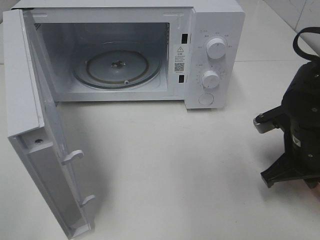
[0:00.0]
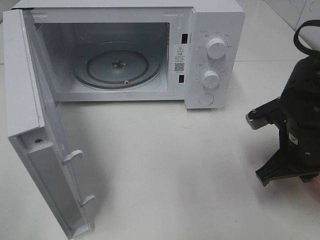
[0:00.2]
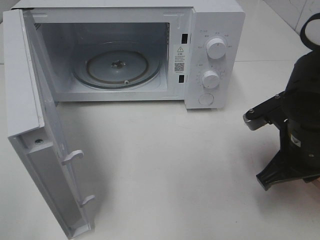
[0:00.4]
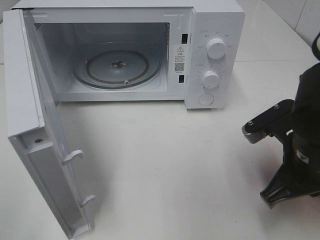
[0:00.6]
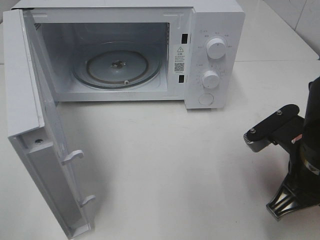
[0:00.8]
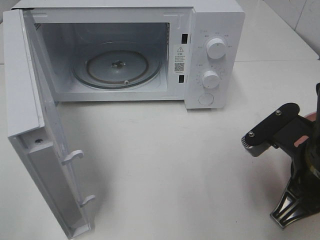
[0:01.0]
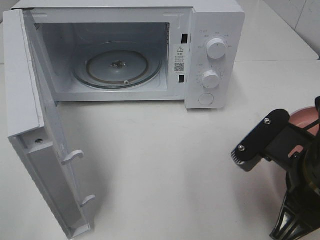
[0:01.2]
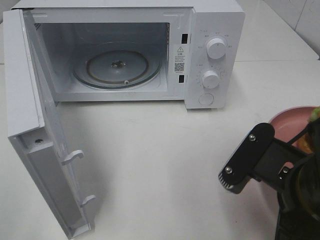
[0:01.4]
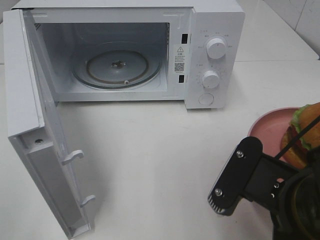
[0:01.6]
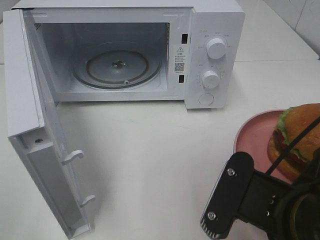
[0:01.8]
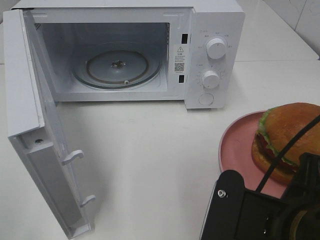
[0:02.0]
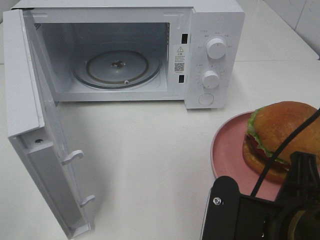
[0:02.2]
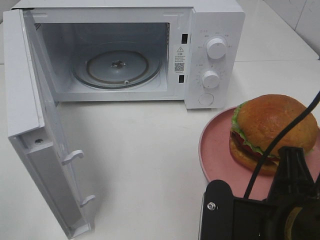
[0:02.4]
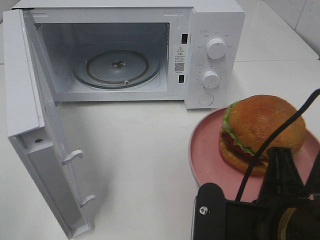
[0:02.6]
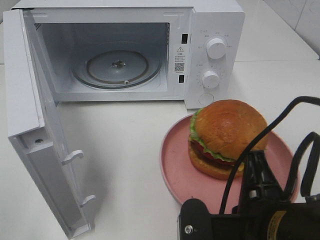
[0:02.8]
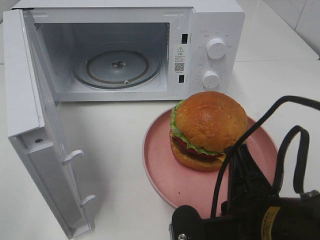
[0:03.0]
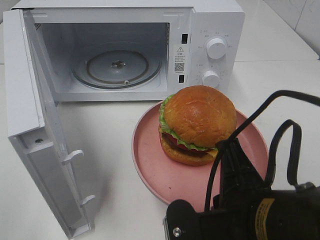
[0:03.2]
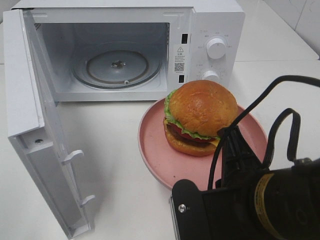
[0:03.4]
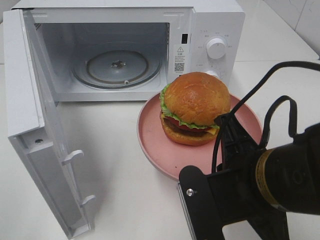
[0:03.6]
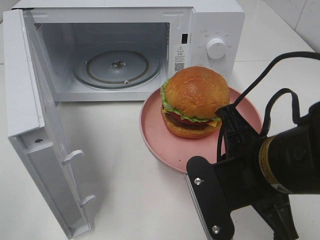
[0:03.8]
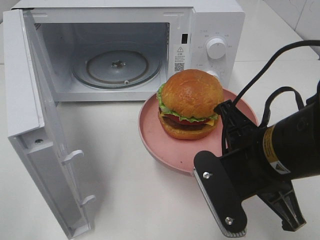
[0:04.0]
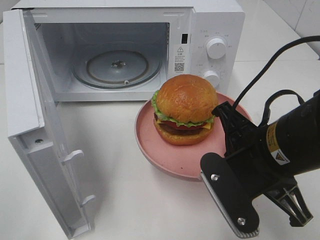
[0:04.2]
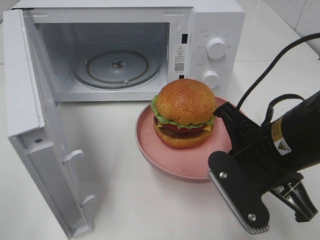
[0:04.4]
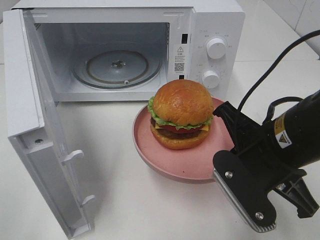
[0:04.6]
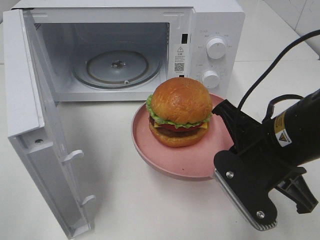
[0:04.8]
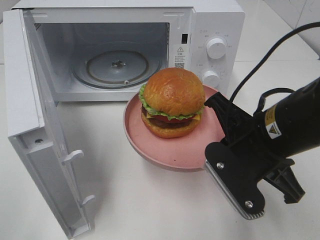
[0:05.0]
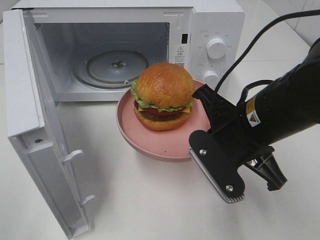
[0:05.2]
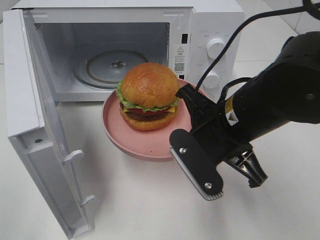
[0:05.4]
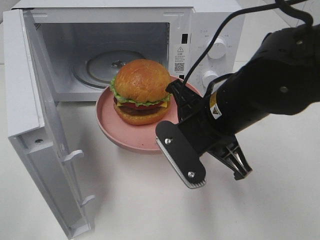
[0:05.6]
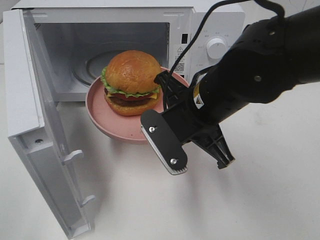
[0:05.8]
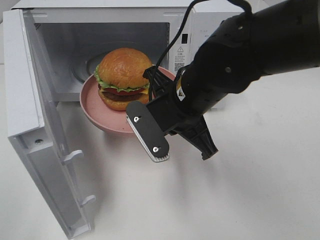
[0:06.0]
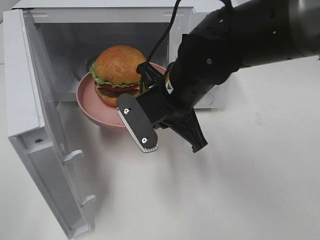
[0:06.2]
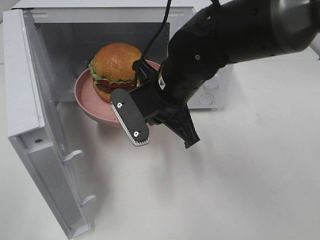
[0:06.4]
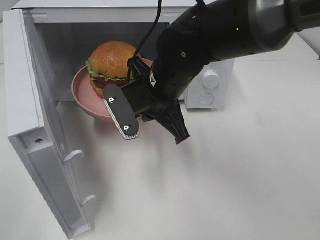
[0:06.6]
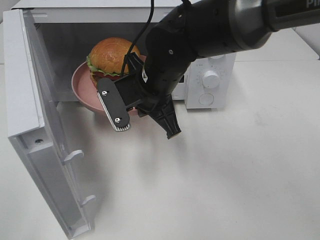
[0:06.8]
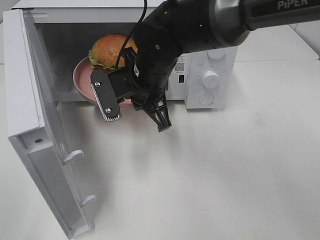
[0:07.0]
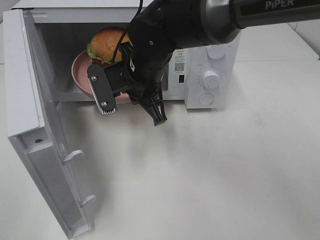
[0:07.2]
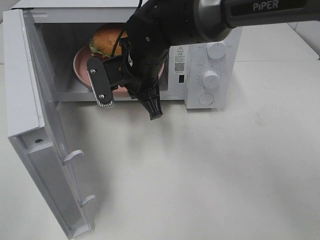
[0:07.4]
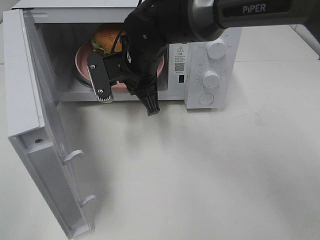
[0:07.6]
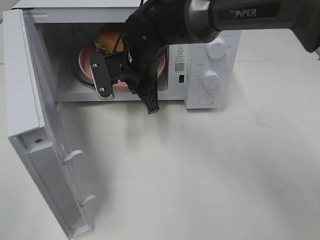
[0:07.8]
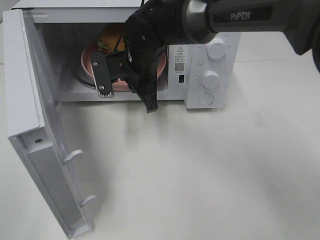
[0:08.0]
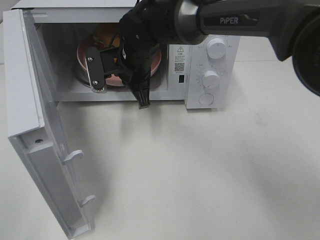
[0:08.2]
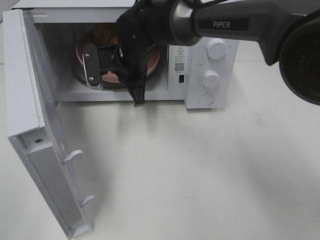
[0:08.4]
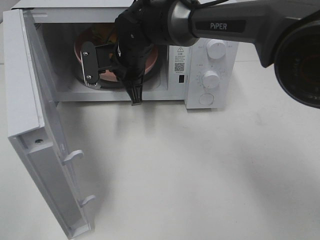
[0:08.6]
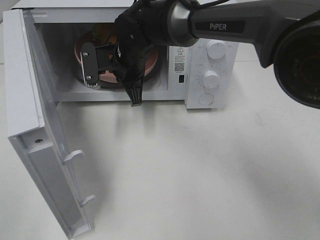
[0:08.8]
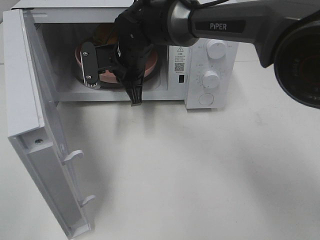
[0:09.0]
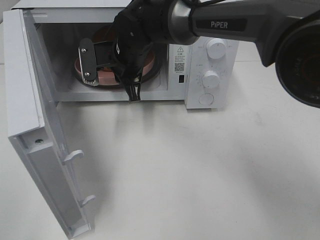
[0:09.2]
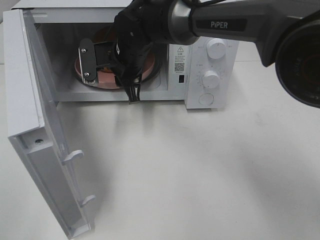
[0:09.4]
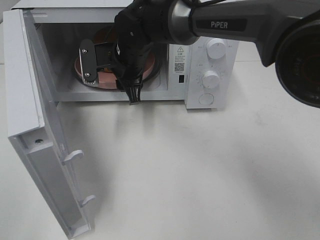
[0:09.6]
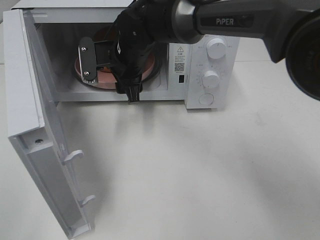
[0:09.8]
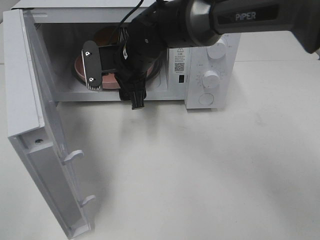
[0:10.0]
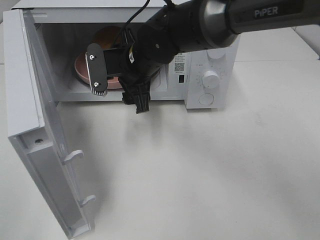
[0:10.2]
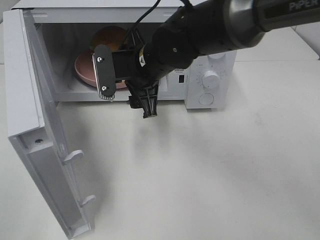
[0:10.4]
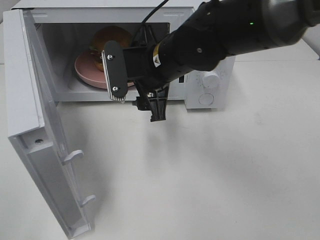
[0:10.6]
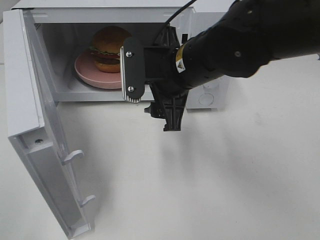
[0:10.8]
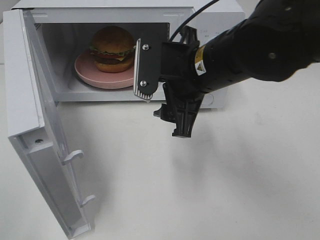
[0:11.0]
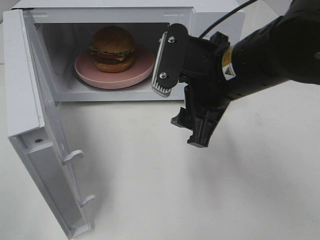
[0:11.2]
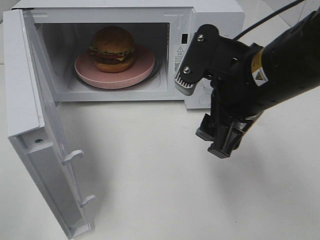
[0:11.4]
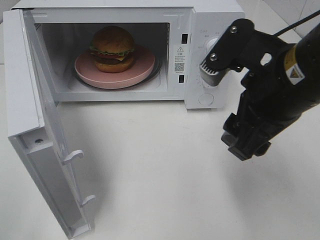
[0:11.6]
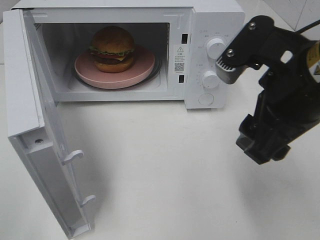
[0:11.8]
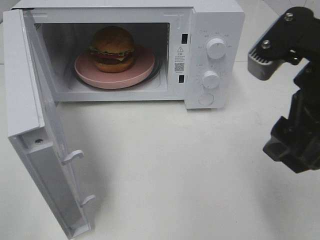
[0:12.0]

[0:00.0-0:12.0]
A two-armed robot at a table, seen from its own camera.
Task of the whole recording: Heat the burger.
Step, 0:00.0 to 0:09.2: Right hand: place the plate in the microwave.
0:00.0 to 0:01.6: The right gripper shifts approximately 20 cm backward, to the left and upward.
0:03.0 to 0:04.4: The right gripper travels forward by approximately 10 cm.
0:04.4 to 0:06.0: The right gripper shifts about 15 cm to the left and forward.
0:06.0 to 0:07.6: The right gripper heads forward and to the left, covering some 15 cm.
0:07.6 to 0:09.0: The grippers move only a little.
0:09.0 to 0:10.4: The right gripper is displaced backward by approximately 5 cm, and opens up.
0:10.4 to 0:12.0: The right gripper moves backward, to the right and upward, roughly 25 cm.

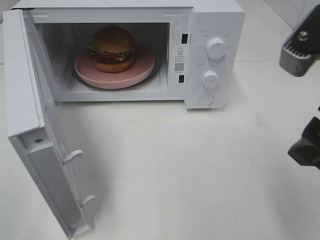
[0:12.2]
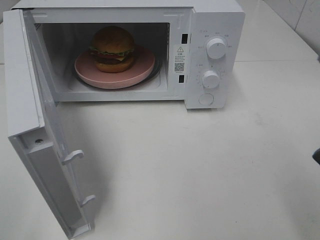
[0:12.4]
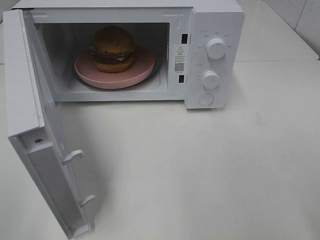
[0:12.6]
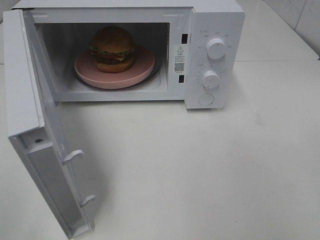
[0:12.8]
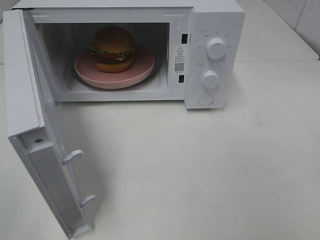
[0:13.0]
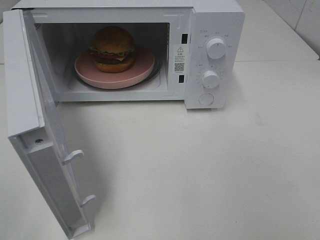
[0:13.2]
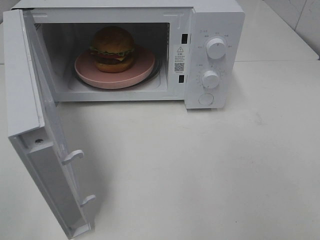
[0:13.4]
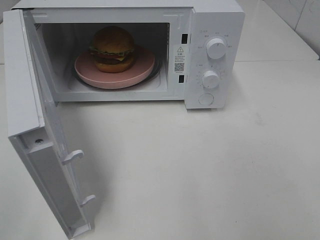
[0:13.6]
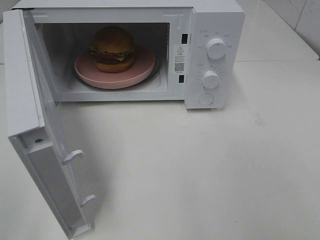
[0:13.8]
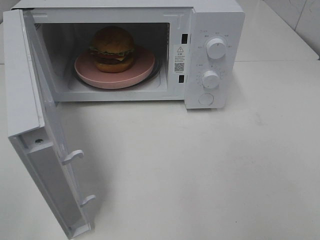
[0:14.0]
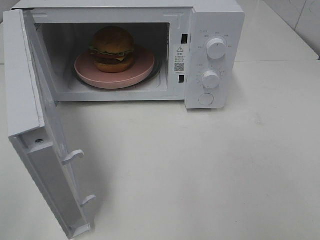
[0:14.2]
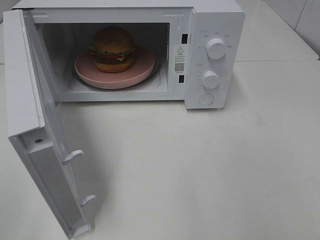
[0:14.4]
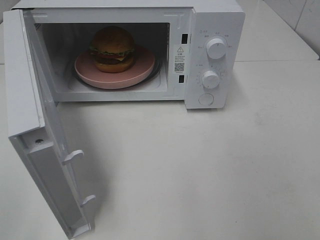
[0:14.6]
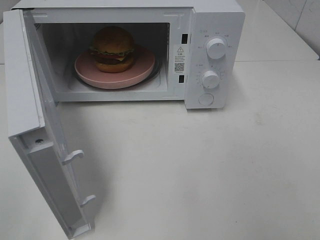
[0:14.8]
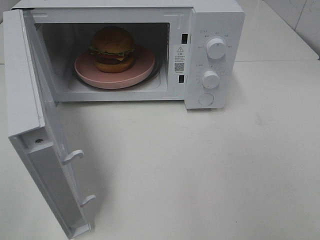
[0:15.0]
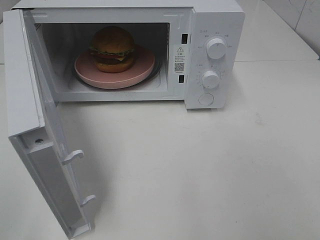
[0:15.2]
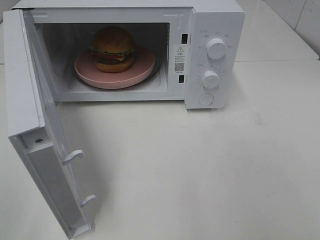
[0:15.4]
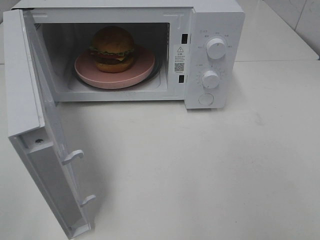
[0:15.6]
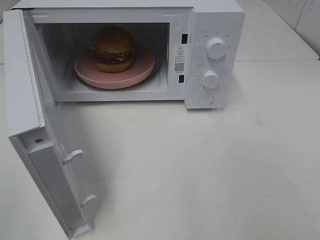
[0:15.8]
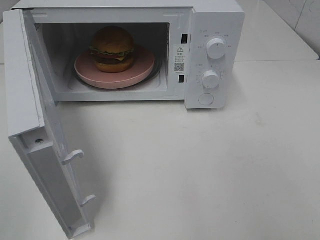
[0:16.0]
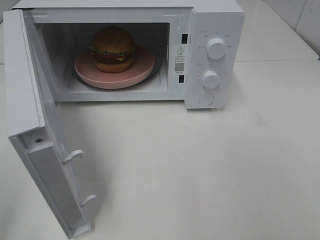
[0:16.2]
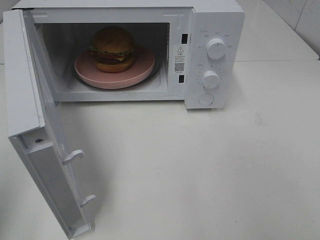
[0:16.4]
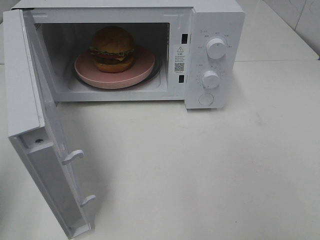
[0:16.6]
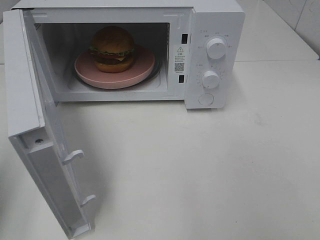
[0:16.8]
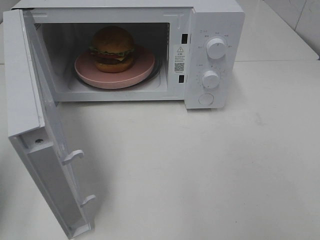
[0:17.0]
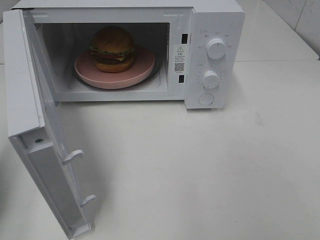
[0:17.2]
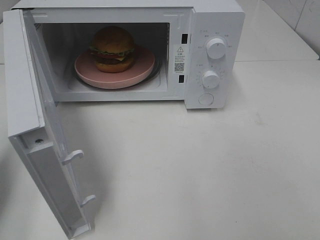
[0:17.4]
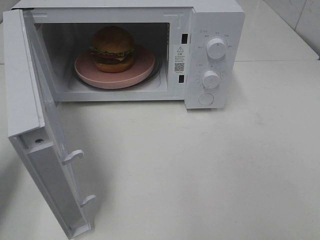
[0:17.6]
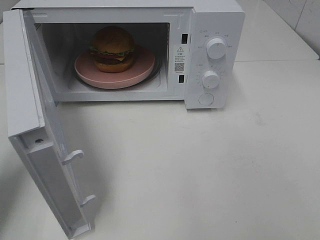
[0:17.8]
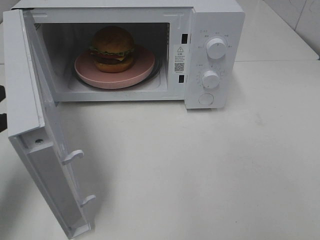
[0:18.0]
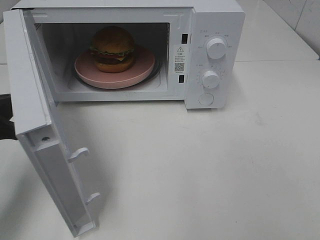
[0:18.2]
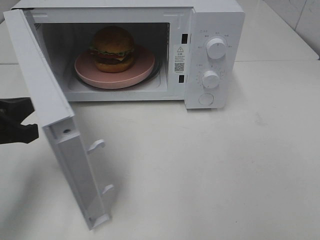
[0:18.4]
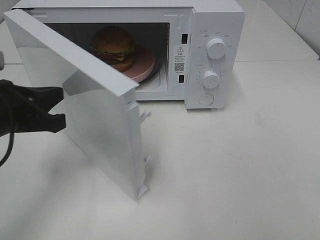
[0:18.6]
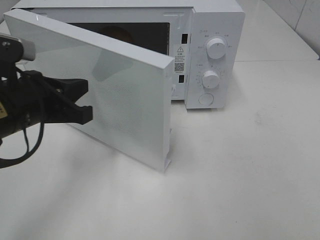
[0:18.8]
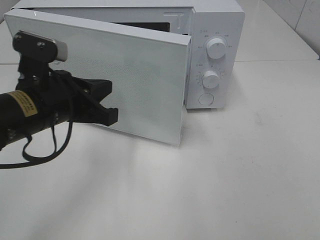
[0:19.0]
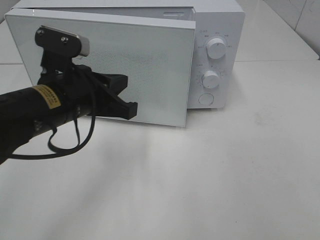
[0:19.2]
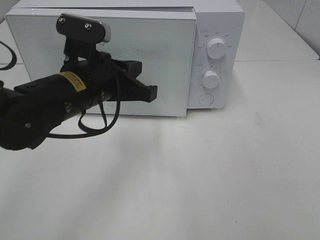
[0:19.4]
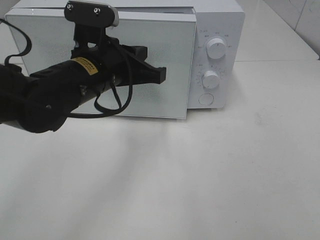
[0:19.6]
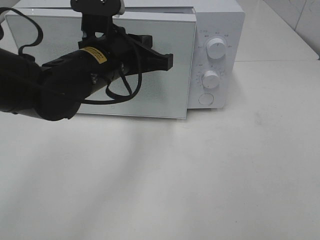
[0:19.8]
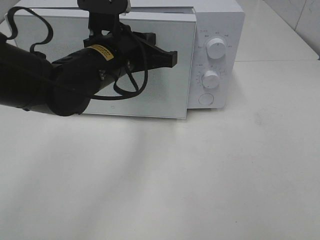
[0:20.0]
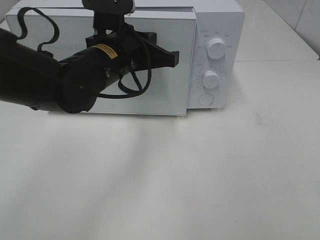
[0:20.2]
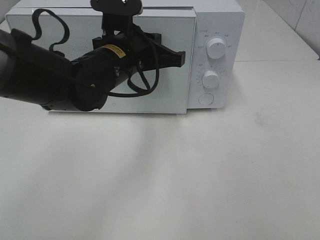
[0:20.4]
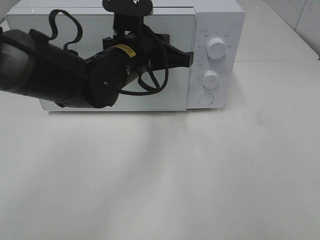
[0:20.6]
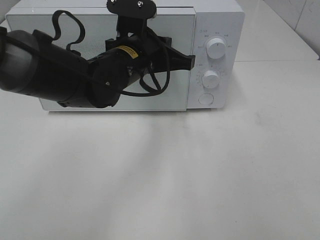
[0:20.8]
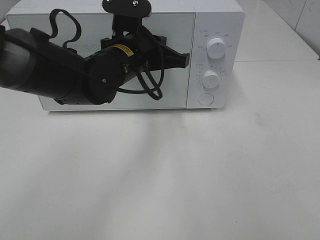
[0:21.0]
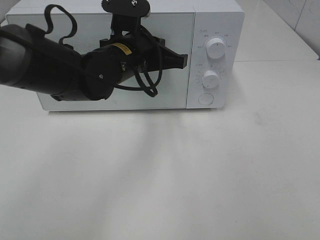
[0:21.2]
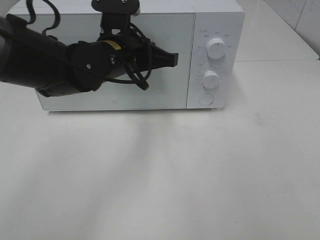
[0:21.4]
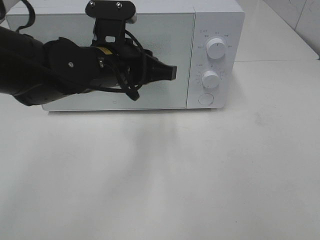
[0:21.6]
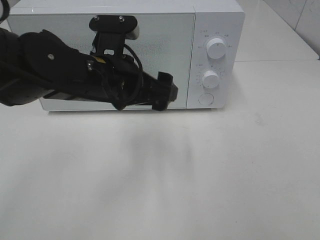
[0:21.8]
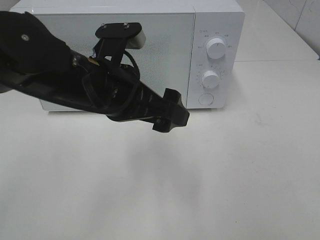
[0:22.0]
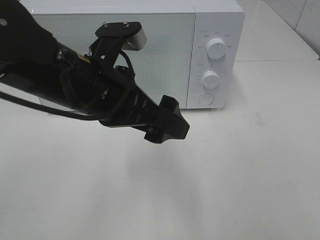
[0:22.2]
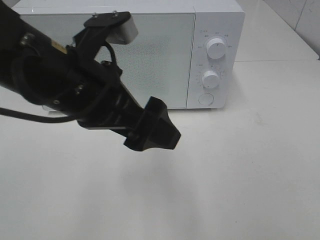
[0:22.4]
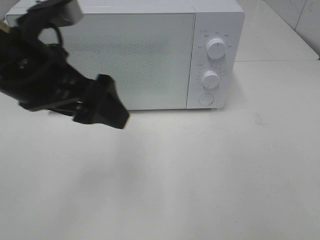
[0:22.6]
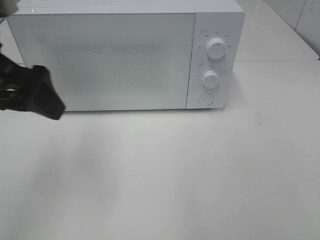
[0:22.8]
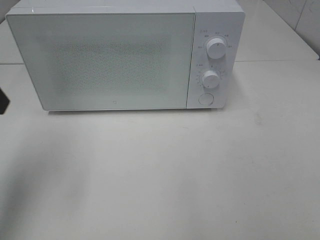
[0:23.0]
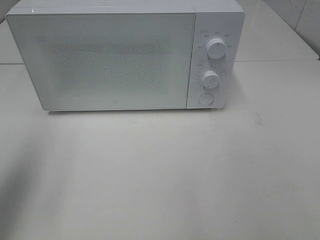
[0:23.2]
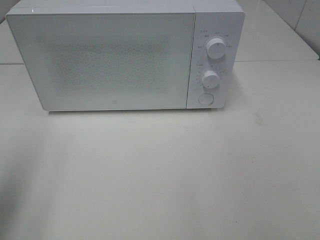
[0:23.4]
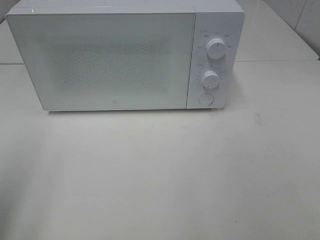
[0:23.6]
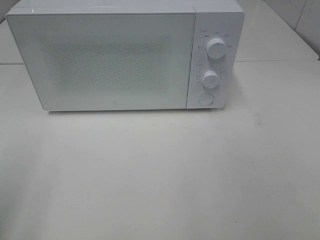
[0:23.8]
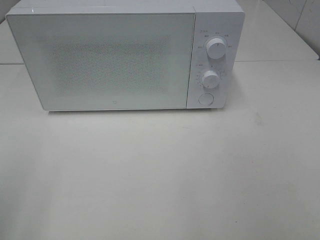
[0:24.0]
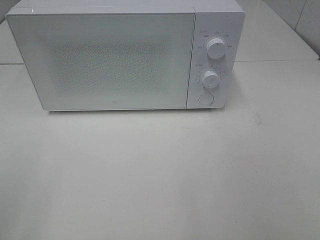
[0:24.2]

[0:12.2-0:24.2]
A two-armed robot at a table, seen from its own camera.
Task of the whole recording: Heat the burger.
Step, 0:12.2 to 0:21.4: Left hand: close the microwave door.
0:12.2 to 0:13.8: The right gripper heads backward and to the right, covering some 20 cm.
0:13.8 to 0:15.2: Both grippers stay put.
0:16.6 to 0:18.2: The left gripper shifts some 15 cm forward, downward and to the right.
0:18.2 to 0:19.8: The left gripper goes approximately 20 cm to the right and forward.
0:19.8 to 0:21.2: The left gripper shifts by roughly 5 cm.
0:21.2 to 0:22.6: The left gripper goes some 20 cm backward, to the left and upward, and opens its fingers.
0:22.6 to 0:24.2: The left gripper moves backward and to the left, some 25 cm.
